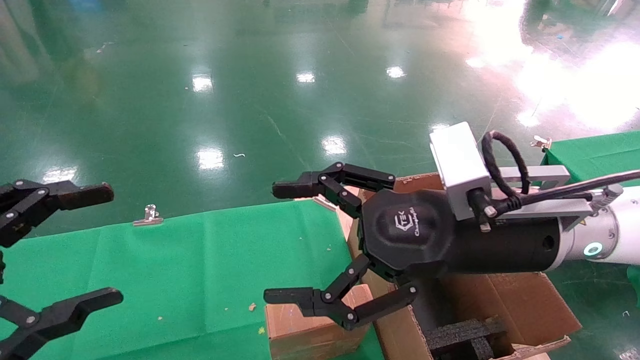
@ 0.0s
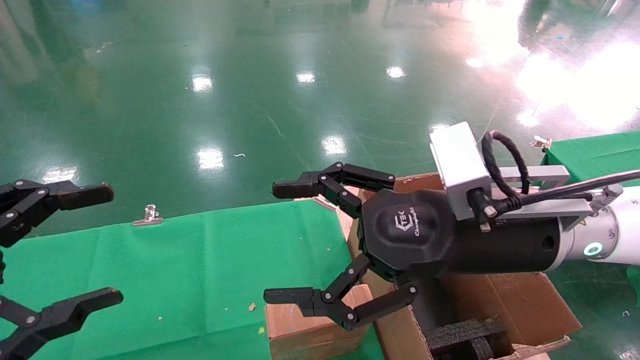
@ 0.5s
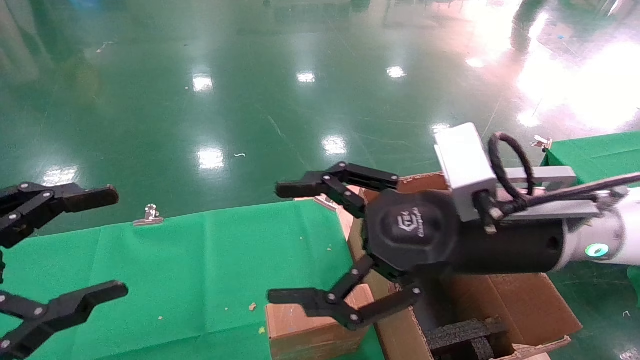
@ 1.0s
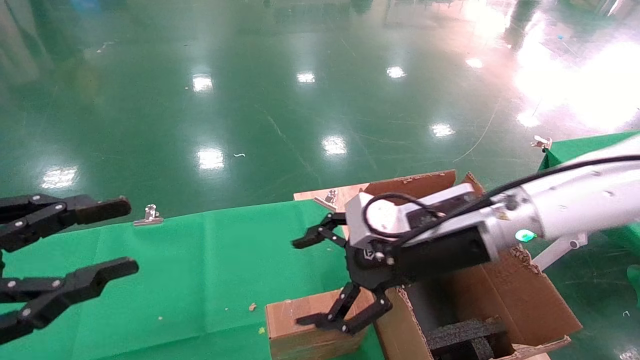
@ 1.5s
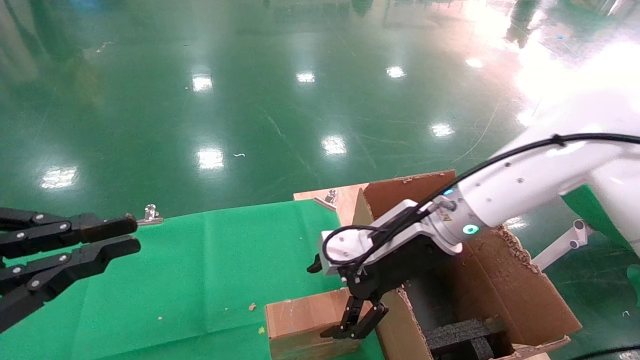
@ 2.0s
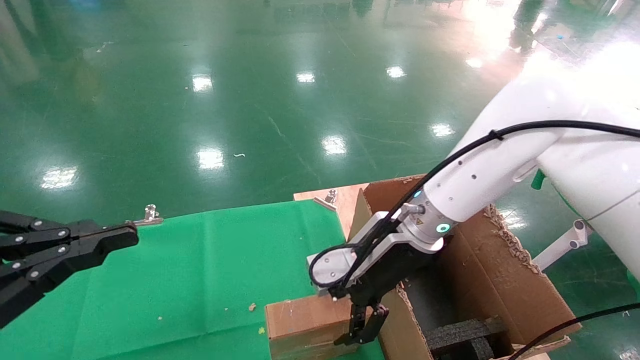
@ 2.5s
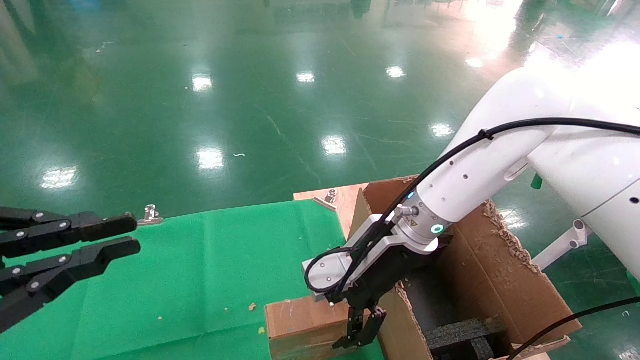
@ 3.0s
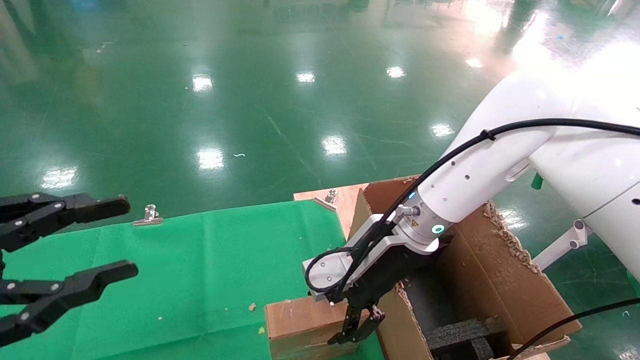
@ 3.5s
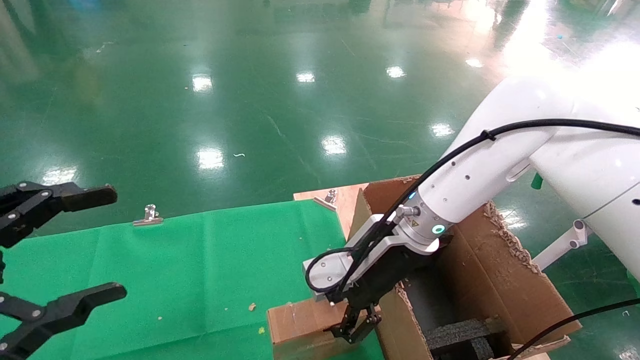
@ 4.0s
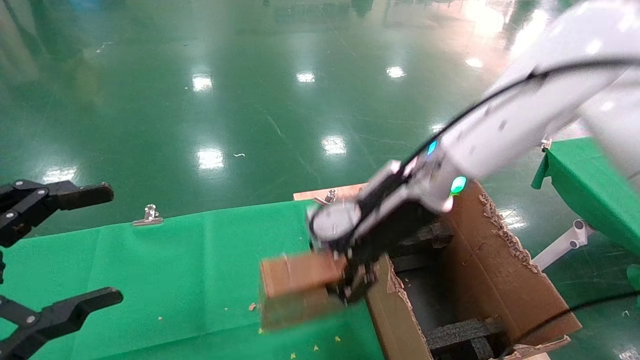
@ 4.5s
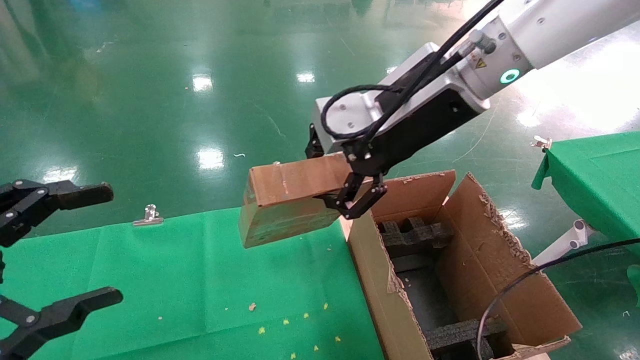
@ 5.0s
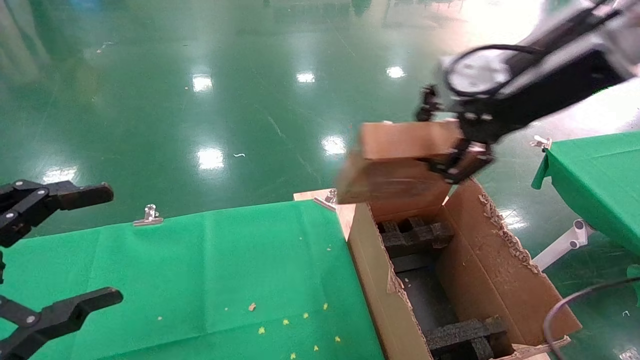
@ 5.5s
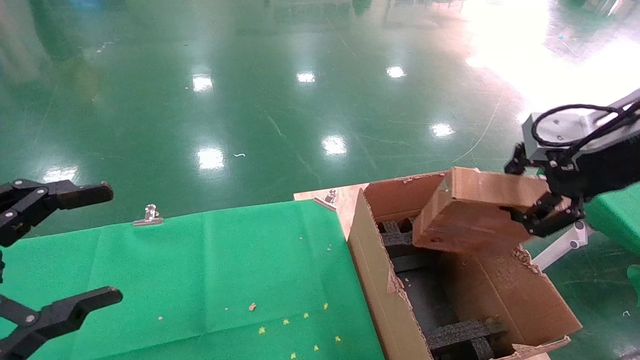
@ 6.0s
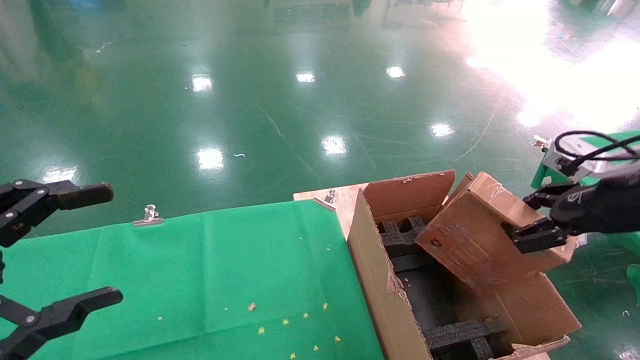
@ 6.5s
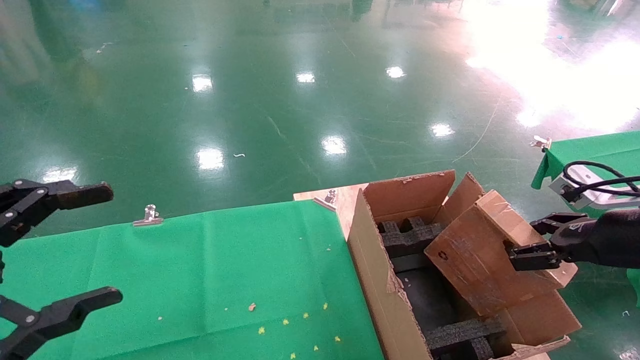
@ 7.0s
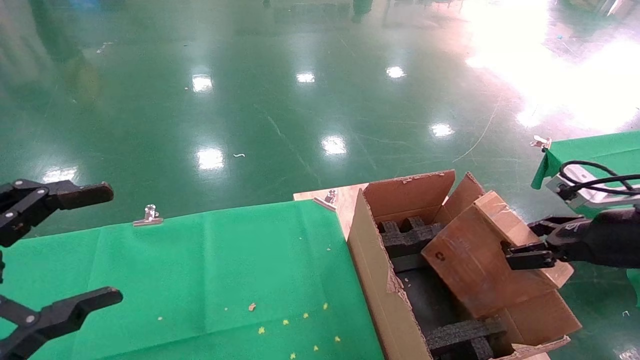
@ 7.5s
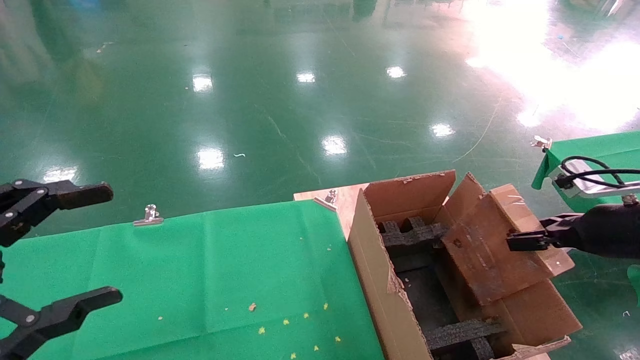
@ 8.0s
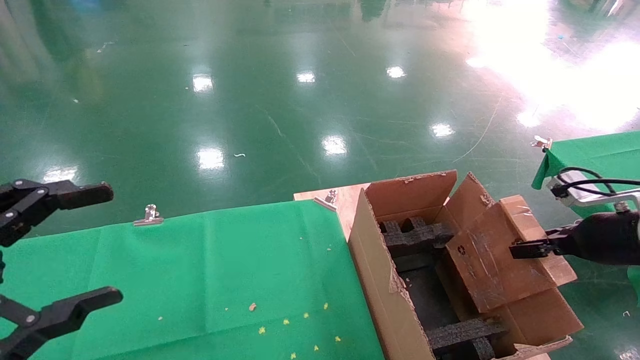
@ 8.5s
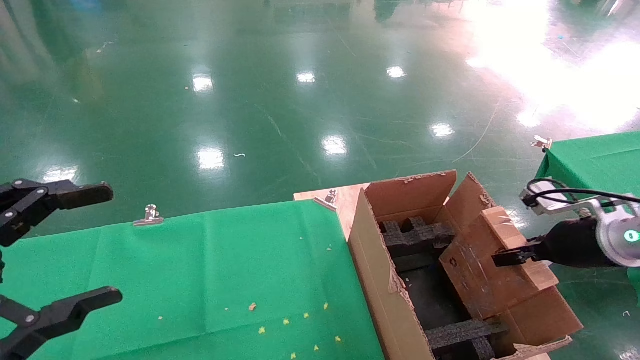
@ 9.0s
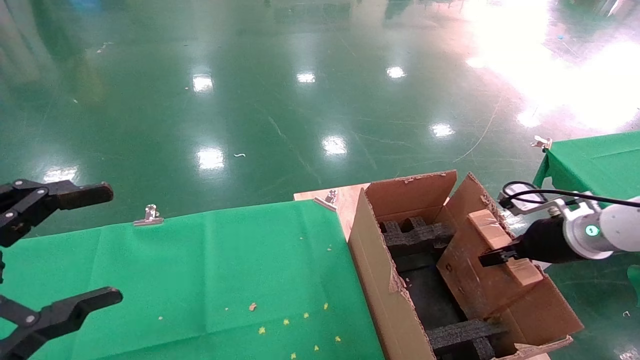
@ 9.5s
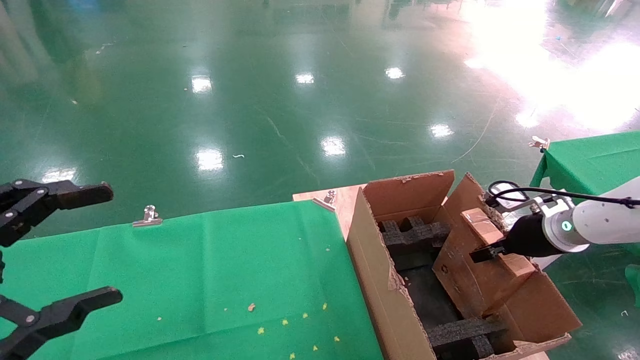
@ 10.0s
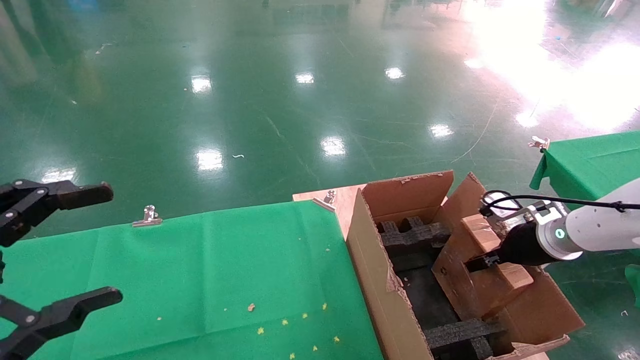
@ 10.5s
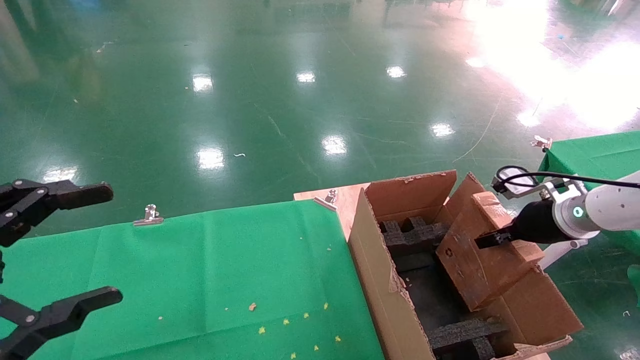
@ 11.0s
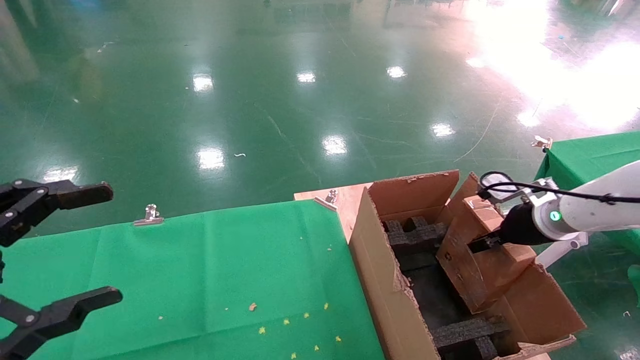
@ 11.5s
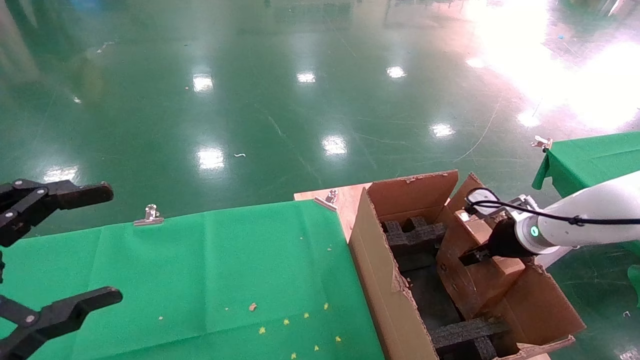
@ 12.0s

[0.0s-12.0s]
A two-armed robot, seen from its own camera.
Task of the whole recording: using a robotic arm to pick up a cardboard box and palace it the carton.
Step, 1.5s to 3.5s: Pick up the mouse and the power cord paper box.
0.0s to 2.0s: The right gripper moves forward and downward, approximately 10 cm. The left gripper closes.
2.0s to 4.0s: The right gripper closes; the left gripper opens.
4.0s to 6.0s: The right gripper travels to the right, upward and backward by roughly 30 cm, and closes its fingers.
6.0s to 8.0s: The right gripper is displaced downward and to the right by about 20 cm.
8.0s to 10.0s: The right gripper heads forward and downward, covering some 15 cm.
10.0s to 12.0s: The grippers make only small movements.

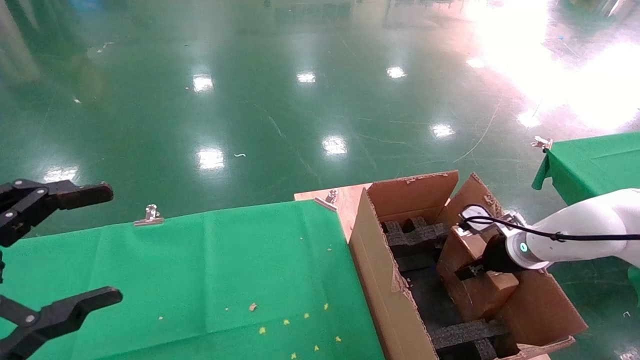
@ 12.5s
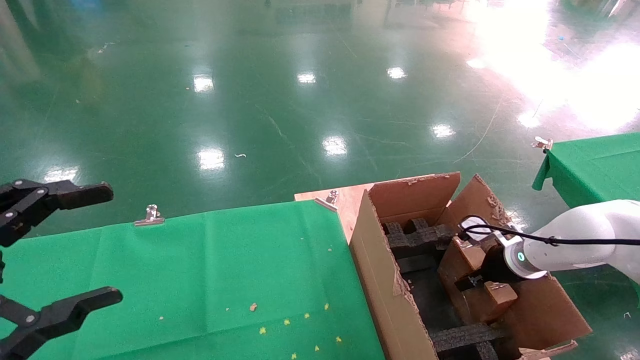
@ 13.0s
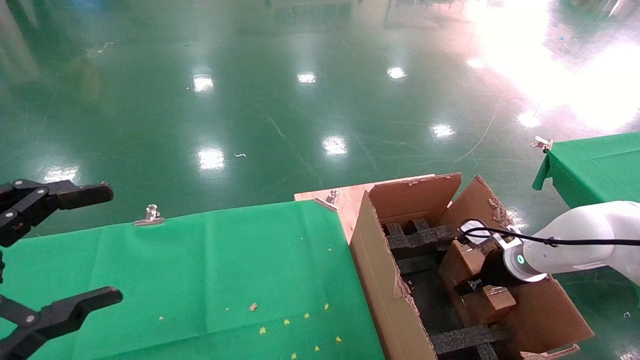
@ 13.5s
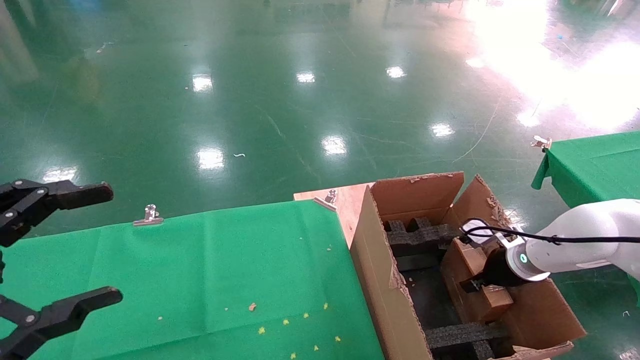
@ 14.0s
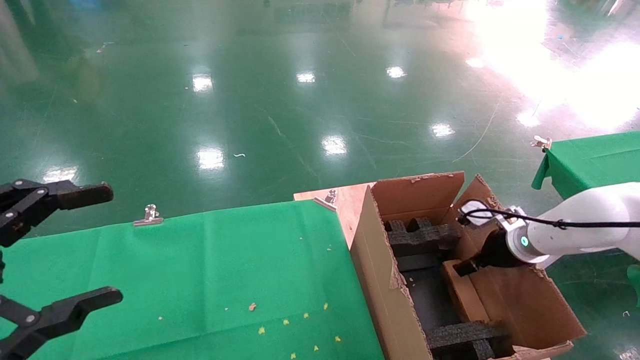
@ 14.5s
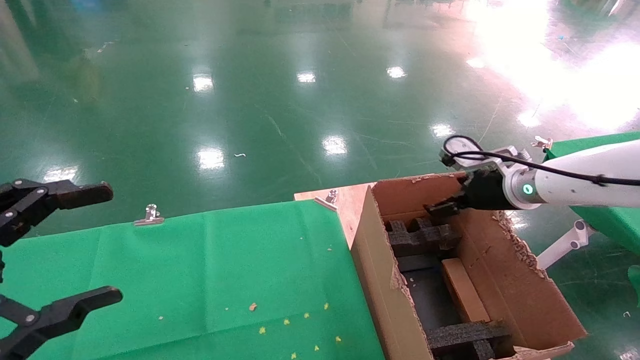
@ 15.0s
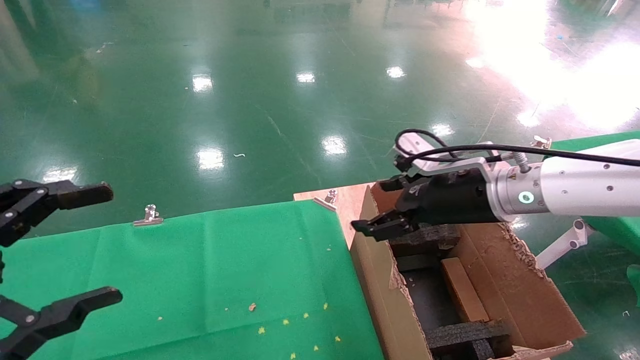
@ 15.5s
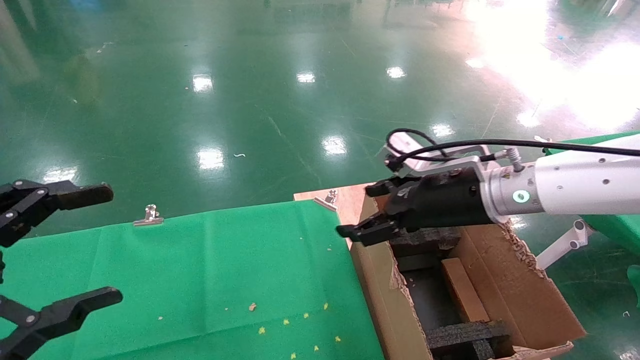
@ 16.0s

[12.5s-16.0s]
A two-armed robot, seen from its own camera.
Task of the whole recording: using a robotic arm to pick up a cardboard box and palace it the carton.
Step, 12.5s to 14.5s: Place the mouse and the power cord paper box into the container.
12.5s to 14.5s: The right gripper opens up.
14.5s to 16.0s: The right gripper shifts some 20 cm to the left, upward and backward.
